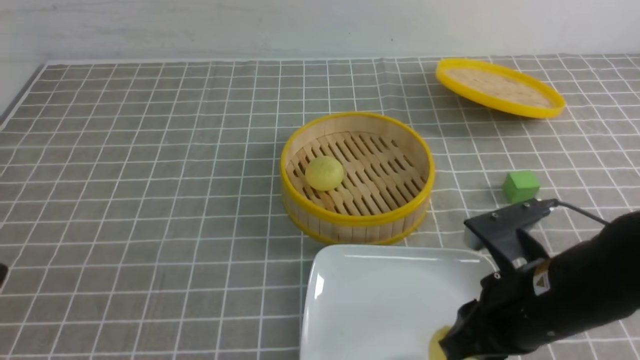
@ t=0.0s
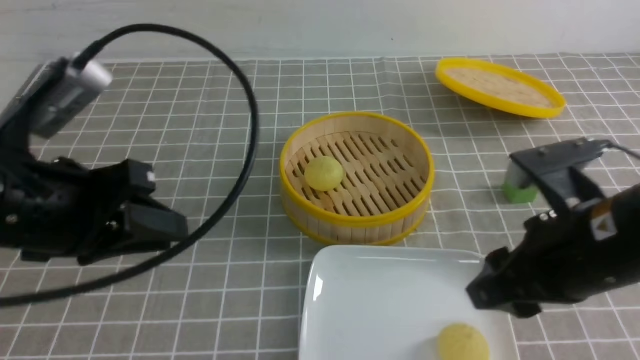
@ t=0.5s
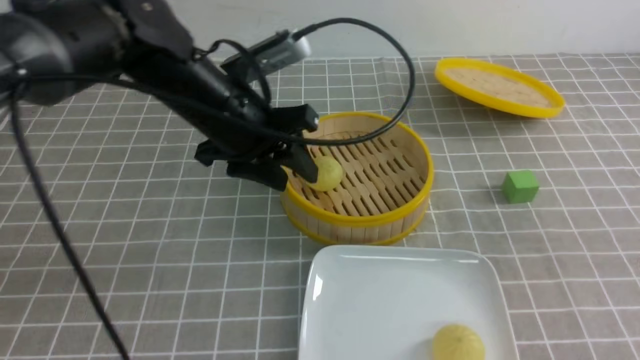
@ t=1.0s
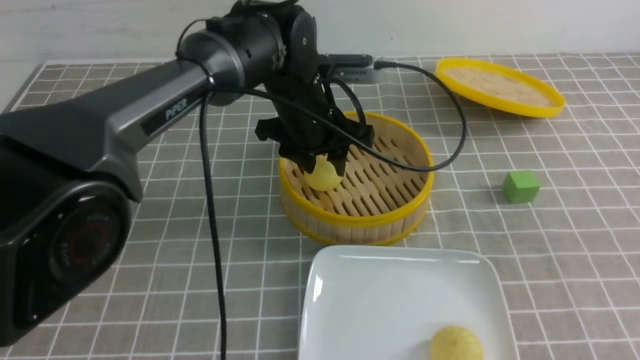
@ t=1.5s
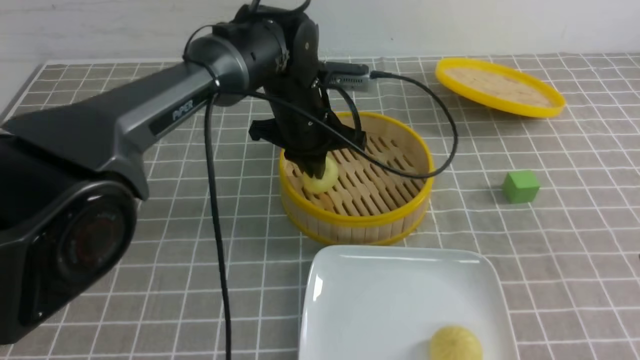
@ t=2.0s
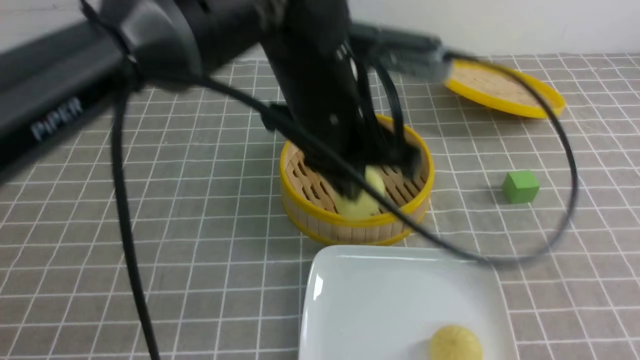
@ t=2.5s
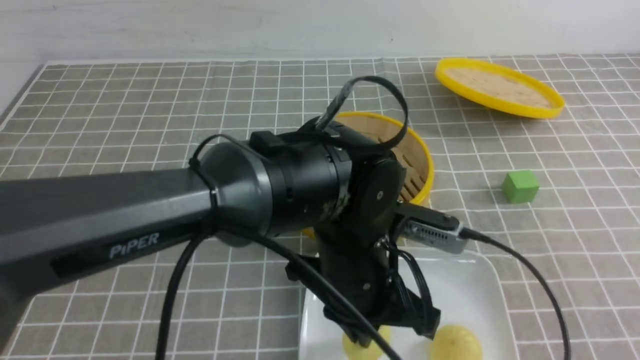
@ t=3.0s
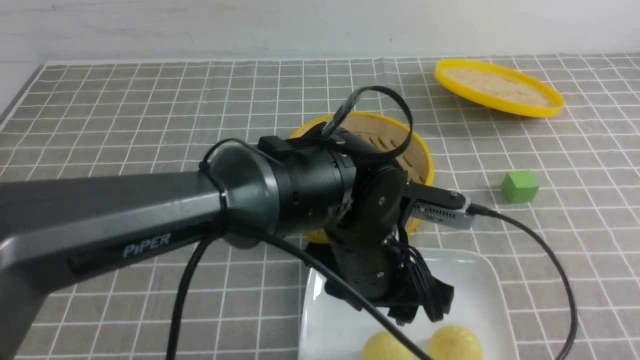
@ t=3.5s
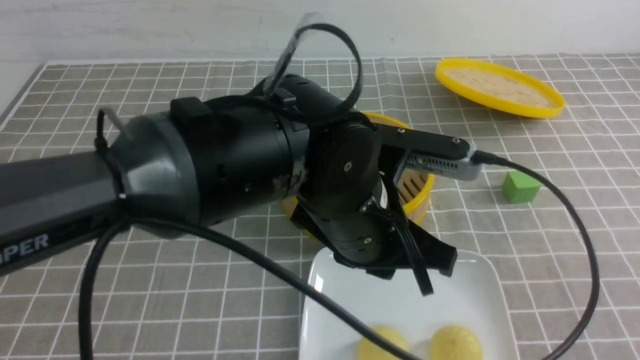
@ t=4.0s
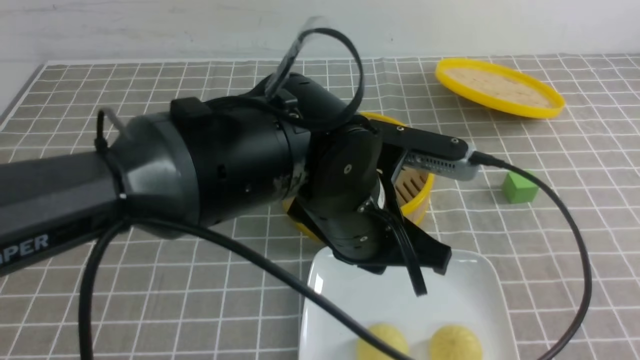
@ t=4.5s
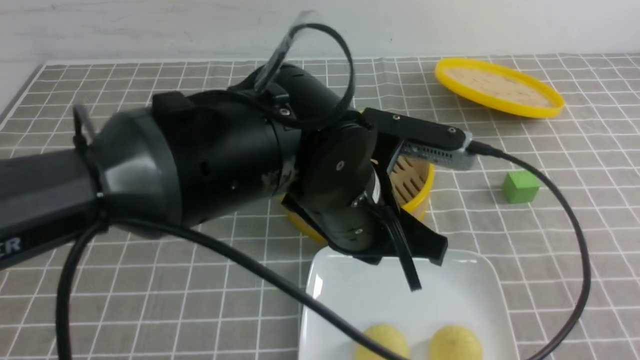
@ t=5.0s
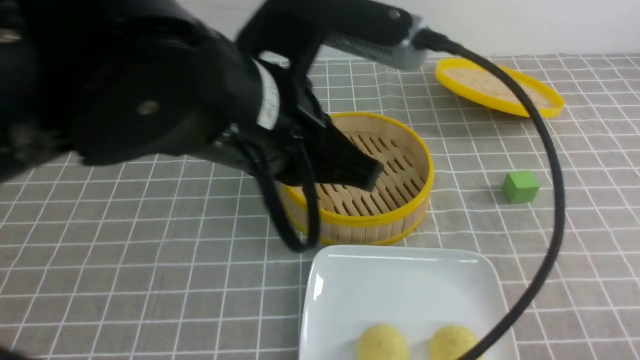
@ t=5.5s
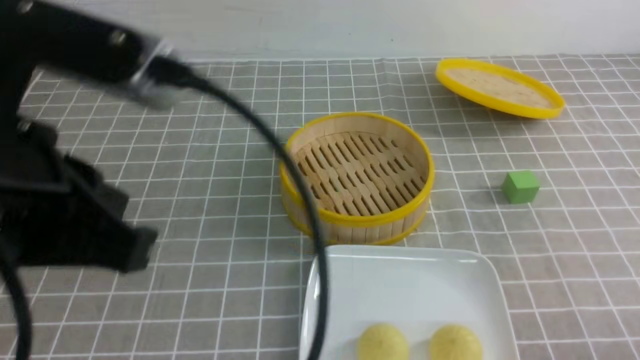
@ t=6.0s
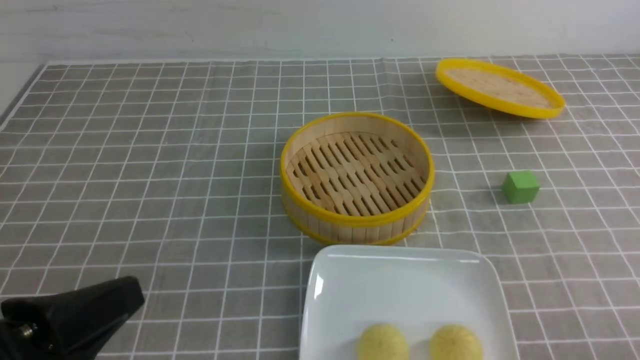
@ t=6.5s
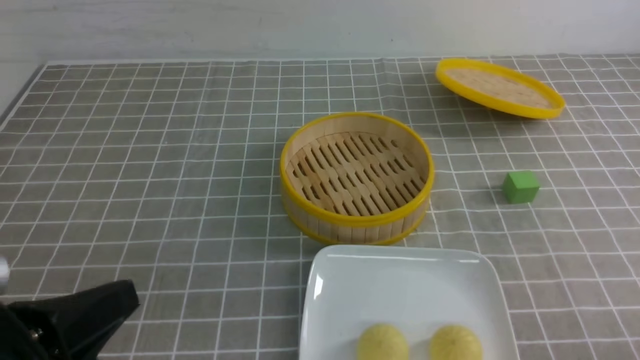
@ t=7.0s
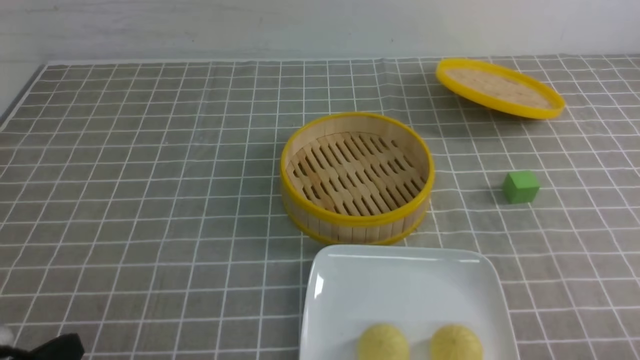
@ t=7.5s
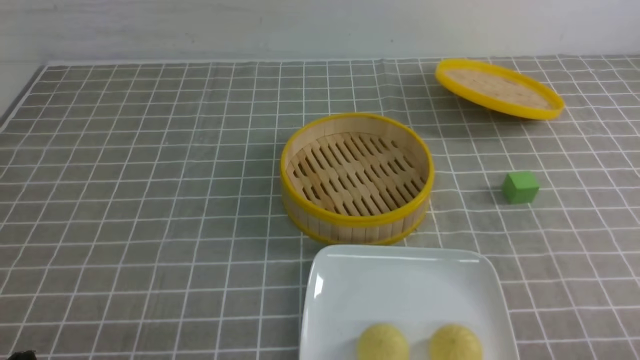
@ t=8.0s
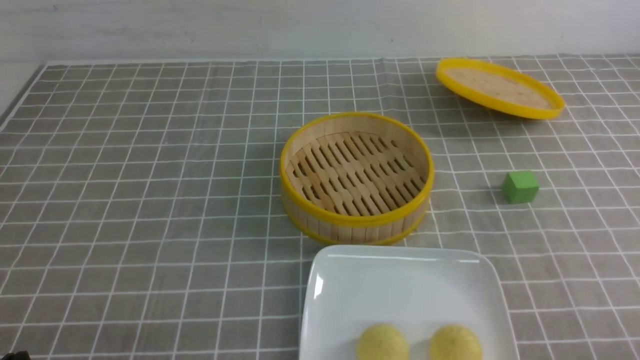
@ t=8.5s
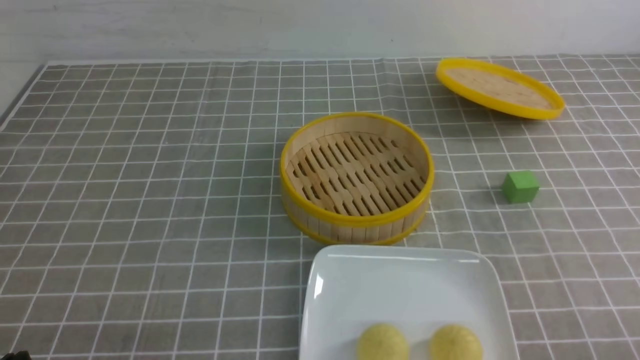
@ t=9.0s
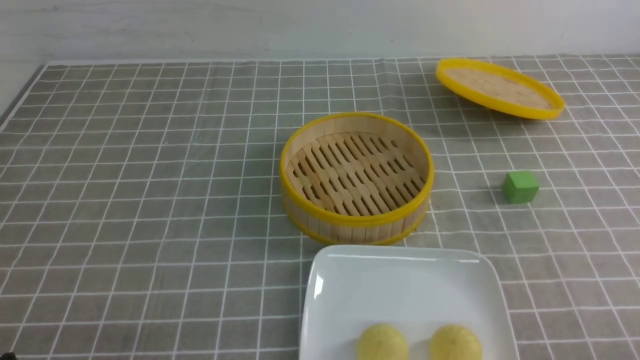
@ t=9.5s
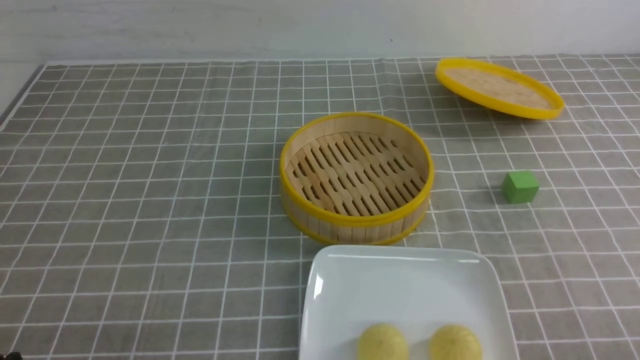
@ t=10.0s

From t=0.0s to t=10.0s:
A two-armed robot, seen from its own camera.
Step, from t=0.5s to t=2.0s: use the left arm to grab the steamed stuffed bun that is closest to it.
Step, from t=2.5s to t=3.0s: use the left arm to put the steamed stuffed bun into the plate.
From t=0.0s to t=2.0s: The left gripper goes some 40 cm forward and to the right, and opens and closes again, while the right gripper is displaced upward, to the right and backward by about 15 cm, and opens, then closes once more.
From t=2.0s to t=4.0s: The left gripper moves backward, about 20 cm, and opens, then closes again; the right gripper is displaced backward and to the right by some 15 cm.
From t=4.0s to t=6.0s: The right gripper is displaced downward by some 10 cm. Meanwhile the left gripper moves to the left, upward and backward, about 25 cm.
From t=6.0s to t=8.0s: The left gripper travels downward and to the left by some 25 cm.
